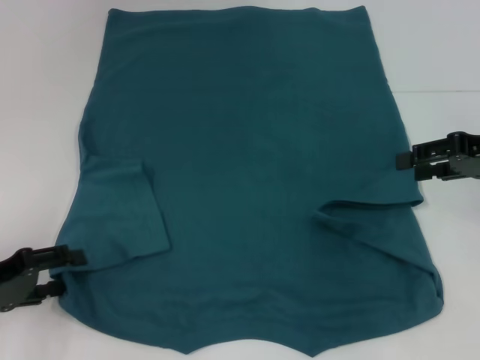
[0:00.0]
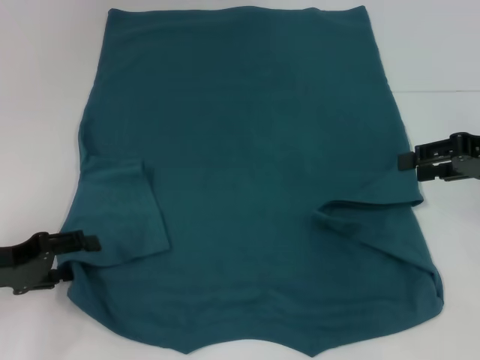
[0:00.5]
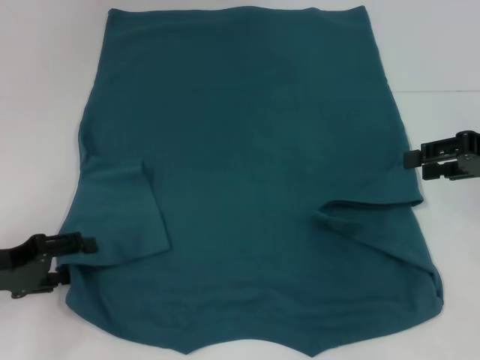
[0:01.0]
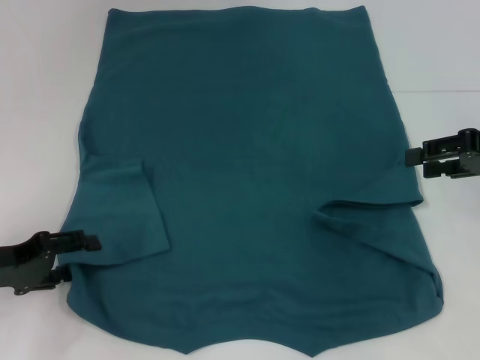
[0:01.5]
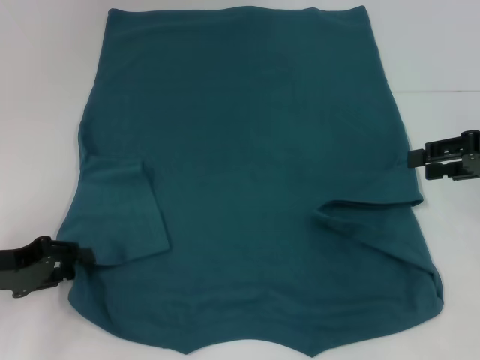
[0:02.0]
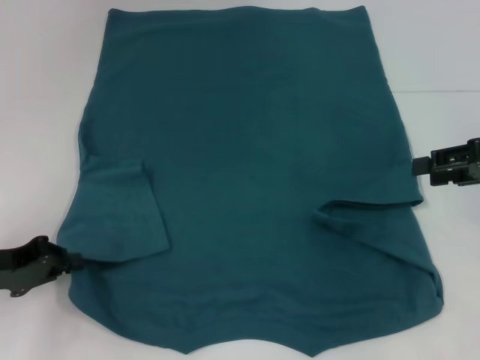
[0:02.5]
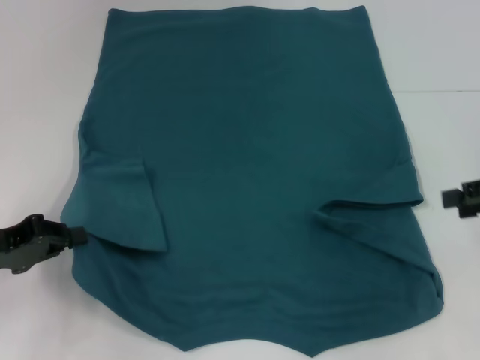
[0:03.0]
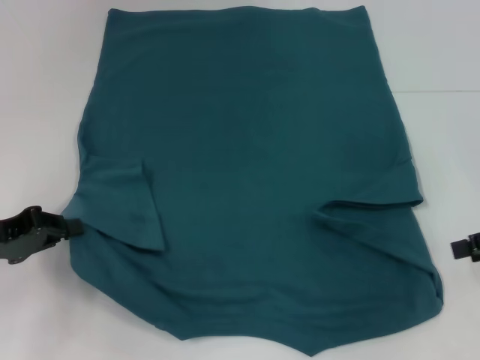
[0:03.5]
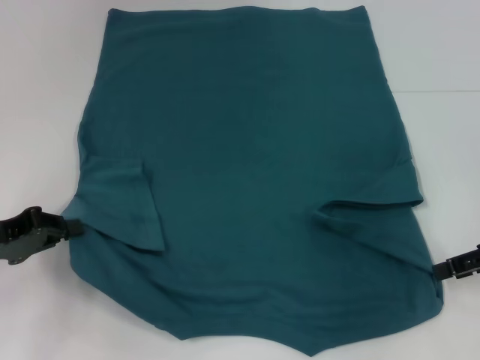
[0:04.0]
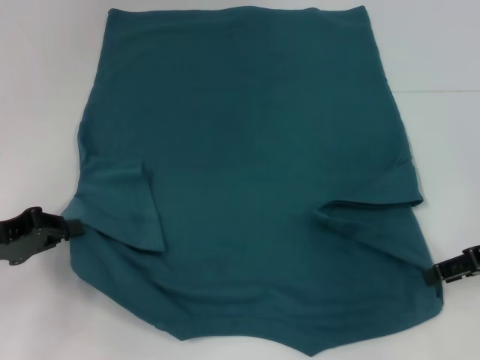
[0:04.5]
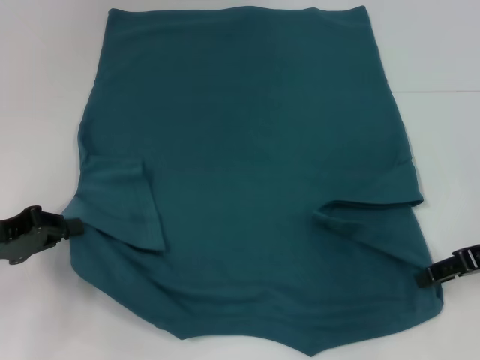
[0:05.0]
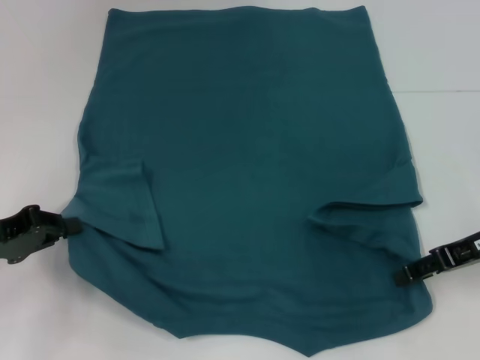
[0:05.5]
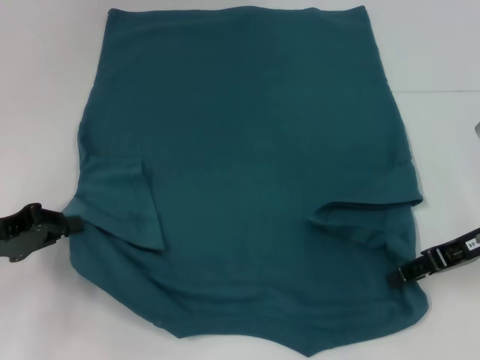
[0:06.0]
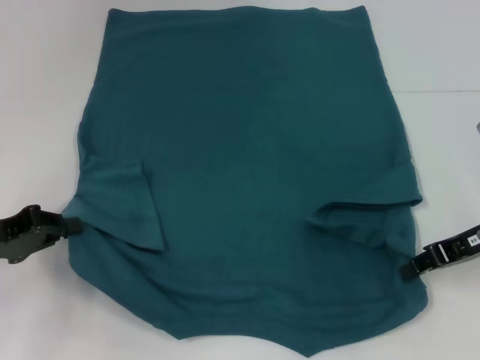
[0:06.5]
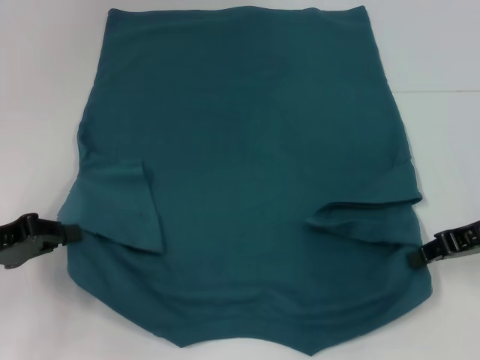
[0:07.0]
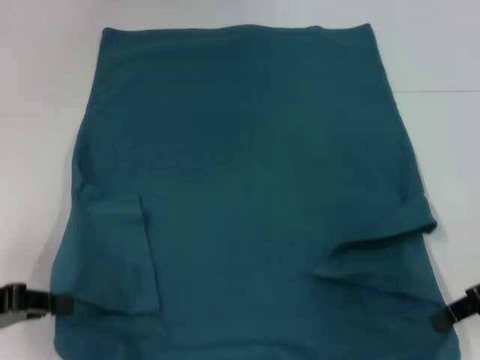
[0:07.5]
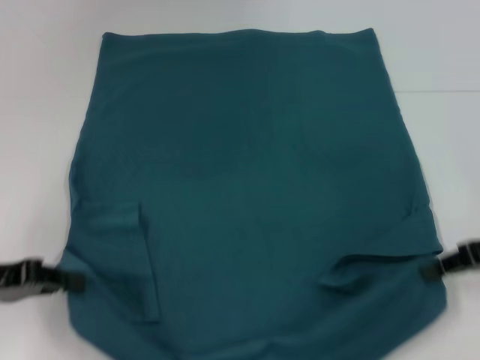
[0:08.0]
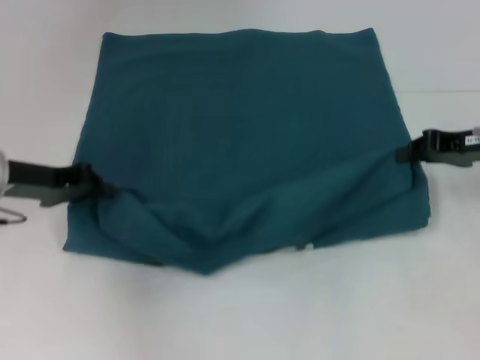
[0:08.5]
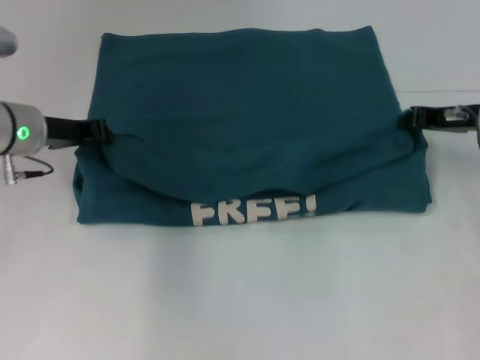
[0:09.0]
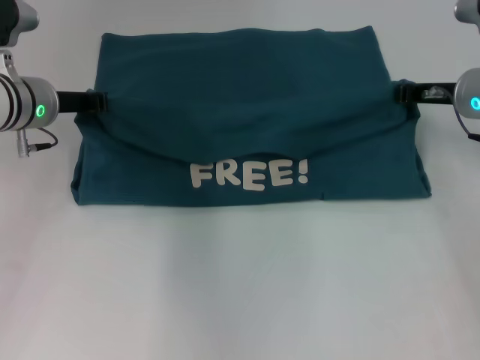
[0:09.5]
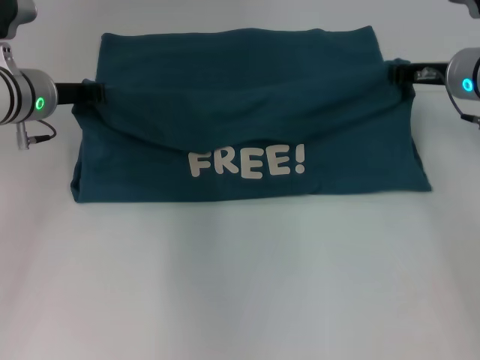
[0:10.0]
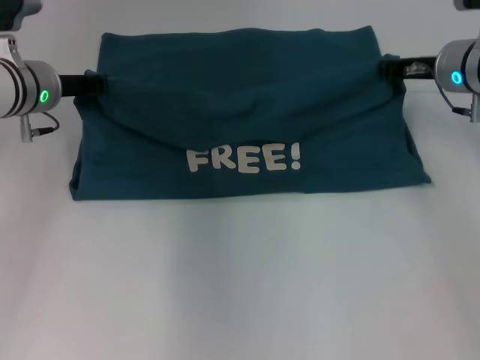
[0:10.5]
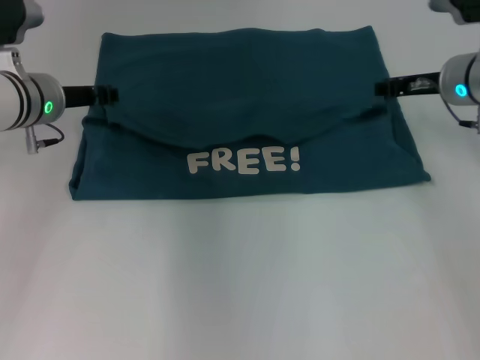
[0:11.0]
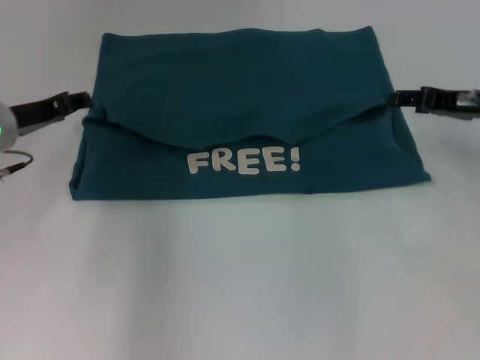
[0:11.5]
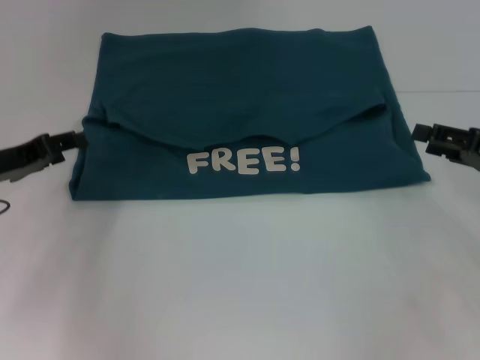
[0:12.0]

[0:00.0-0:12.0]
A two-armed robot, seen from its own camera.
Step, 0.0 to 2.5 s: Grab the bottom left corner with your left hand.
Step, 3.0 to 6.5 s: Grab the bottom right corner with your right hand.
Step, 7.0 to 11.0 s: Fold the clothes to the left.
Step, 7.0 to 11.0 s: Fold the clothes to the right.
0.0 to 2.0 s: The grippers stay close to where they were, moving slightly.
2.0 to 4.0 s: The right gripper changes place by roughly 5 cm. Meanwhile the left gripper closes its fingers.
4.0 to 6.0 s: The right gripper shifts about 5 cm to the left.
6.0 to 8.0 s: The right gripper closes up.
8.0 to 10.0 s: The left gripper travels forward and to the right by roughly 20 cm. The right gripper heads forward and to the left, covering roughly 15 cm.
10.0 to 12.0 s: The left gripper heads backward and to the left, covering approximately 10 cm, and opens up. The right gripper heads backward and to the right, covering roughly 15 cm, and opens up.

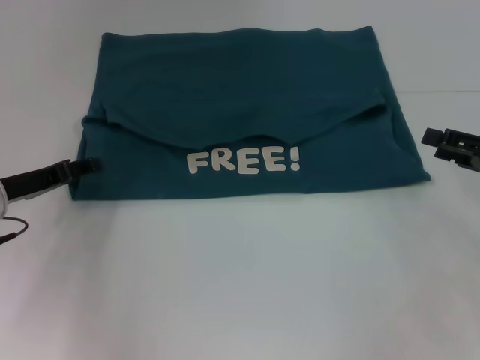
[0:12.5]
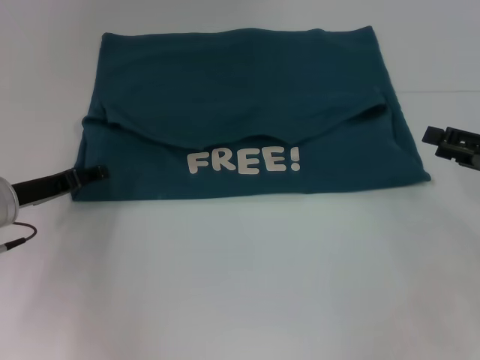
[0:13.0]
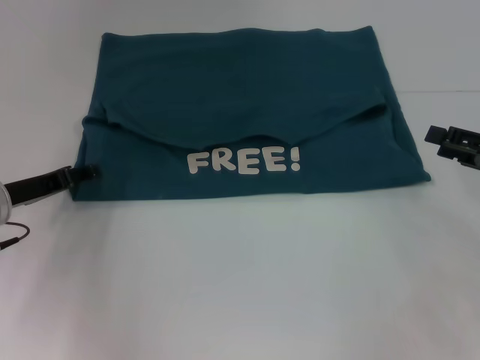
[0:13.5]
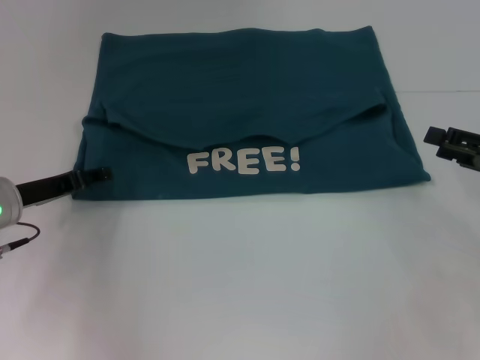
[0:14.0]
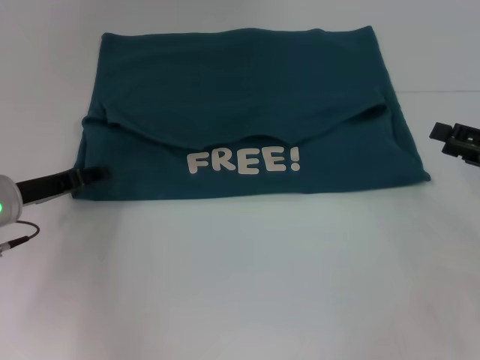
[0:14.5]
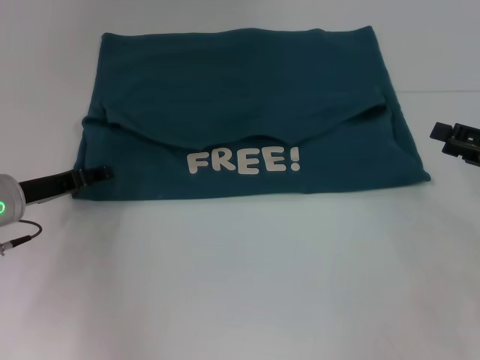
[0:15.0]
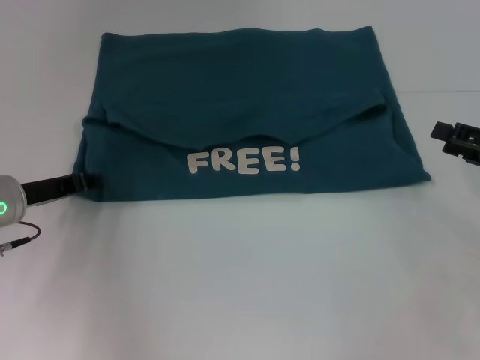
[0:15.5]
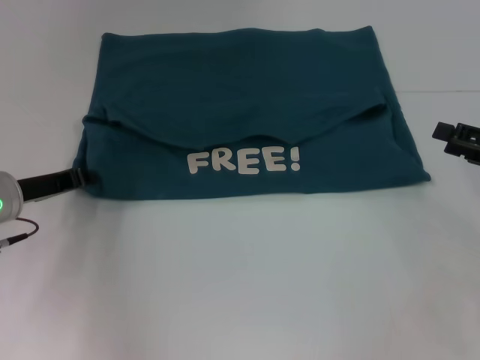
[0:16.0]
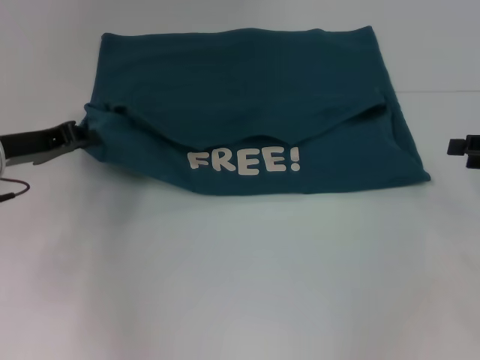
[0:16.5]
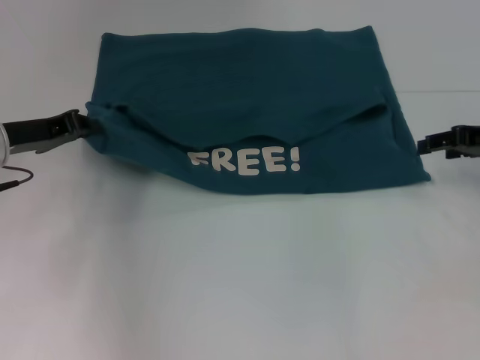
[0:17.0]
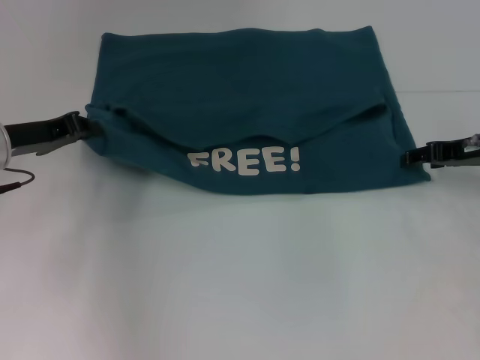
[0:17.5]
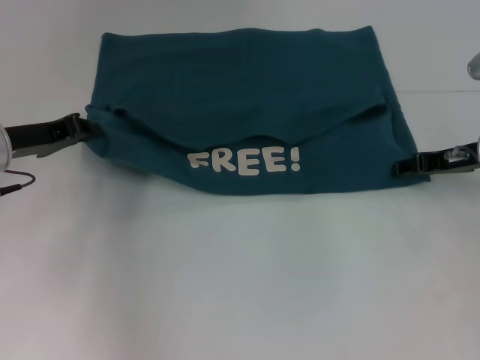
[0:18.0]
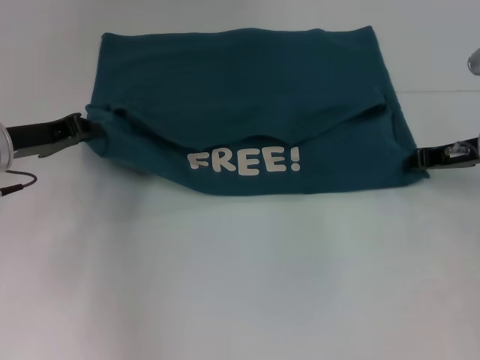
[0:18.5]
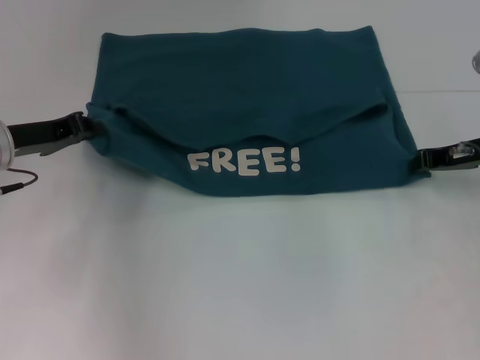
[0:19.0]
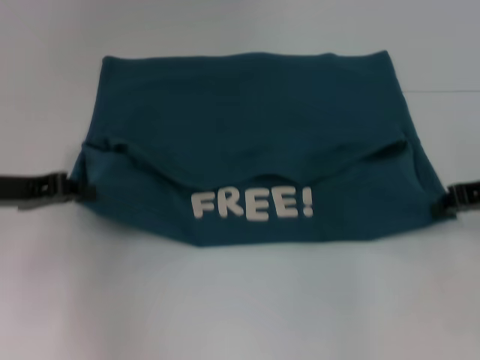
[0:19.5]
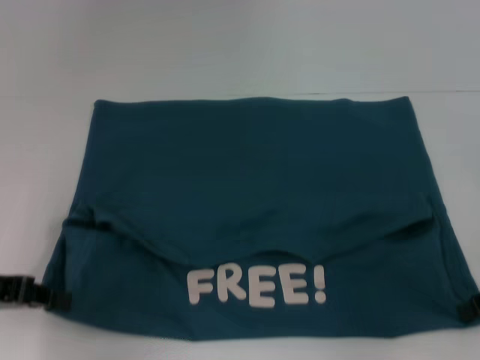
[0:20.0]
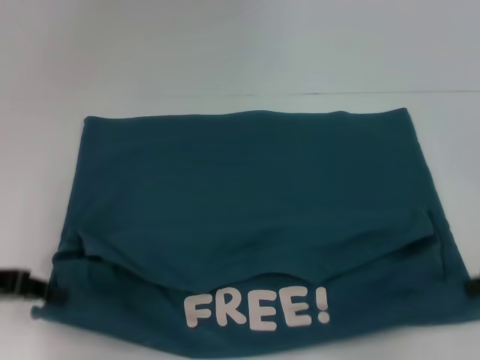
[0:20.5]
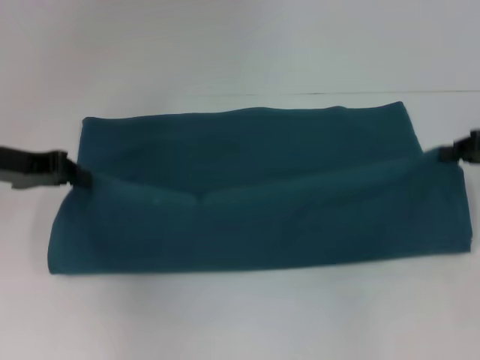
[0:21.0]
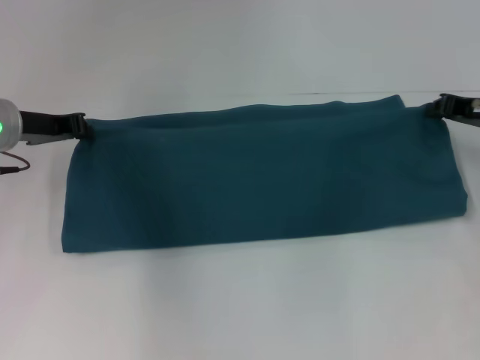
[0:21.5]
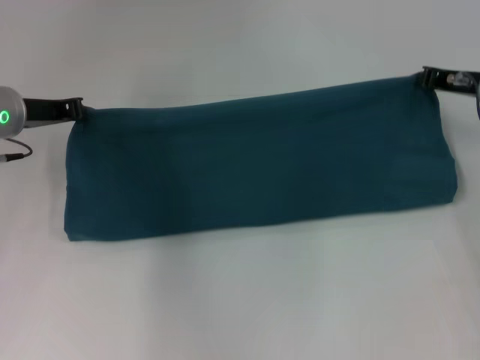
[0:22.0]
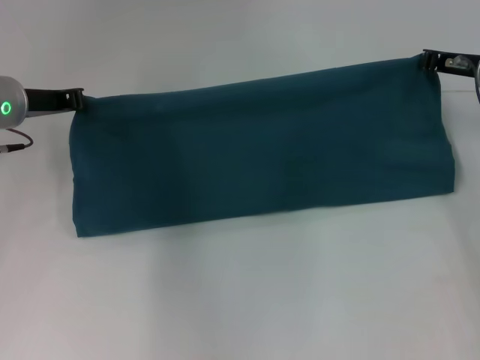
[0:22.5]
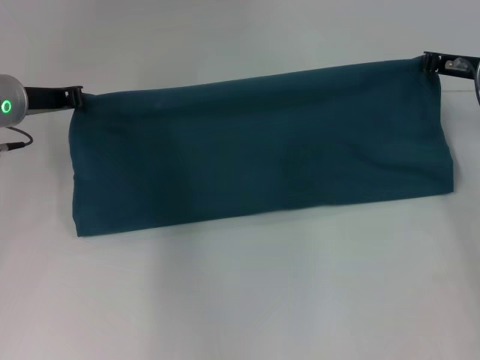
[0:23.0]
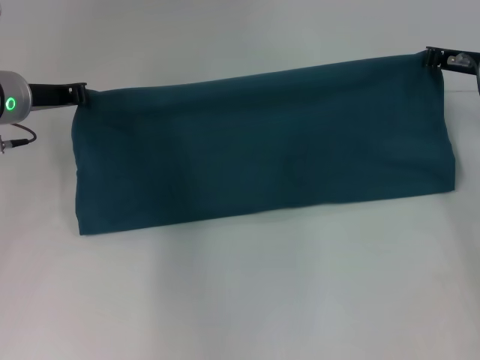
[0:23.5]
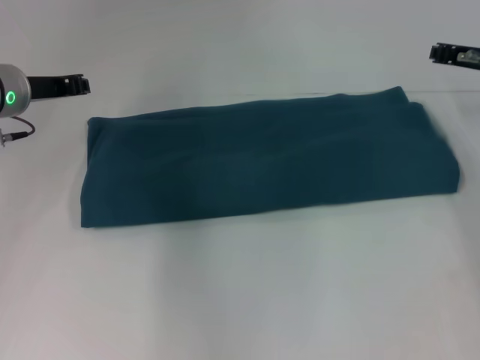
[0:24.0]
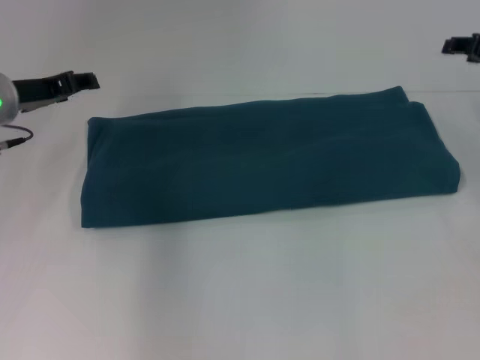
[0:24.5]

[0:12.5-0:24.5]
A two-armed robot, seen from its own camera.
Step, 12.5 to 19.5 s: Pull the clothes with your left hand.
Step, 12.5 to 19.5 s: Pull the clothes with your right hand.
Step, 20.0 to 24.0 s: Fold the clothes to the right.
12.5 to 14.5 s: There are only small adjustments of the grippers.
14.5 to 16.5 s: The left gripper ends up about 5 cm from where it was, and closes up.
16.5 to 18.5 s: The right gripper shifts approximately 10 cm to the left and forward, and closes its fingers.
18.5 to 20.5 s: The right gripper heads backward and to the right, covering approximately 15 cm. The left gripper is displaced backward by roughly 10 cm.
20.5 to 22.5 s: The right gripper shifts approximately 15 cm forward and to the left. The left gripper moves forward and to the right, roughly 15 cm.
22.5 to 24.5 s: The right gripper moves to the right, approximately 5 cm, and opens its fingers. Meanwhile the left gripper opens up.

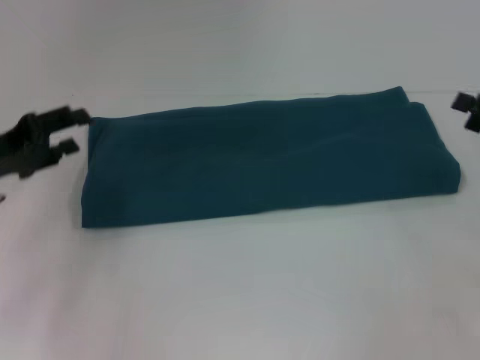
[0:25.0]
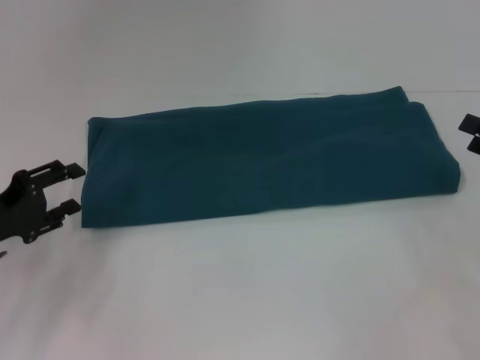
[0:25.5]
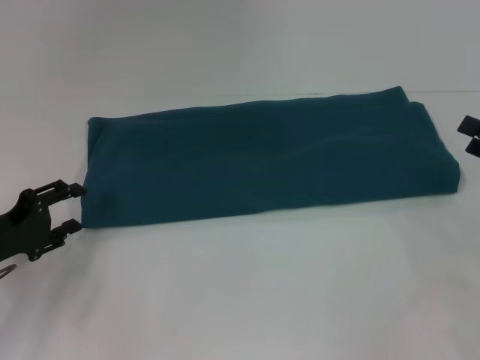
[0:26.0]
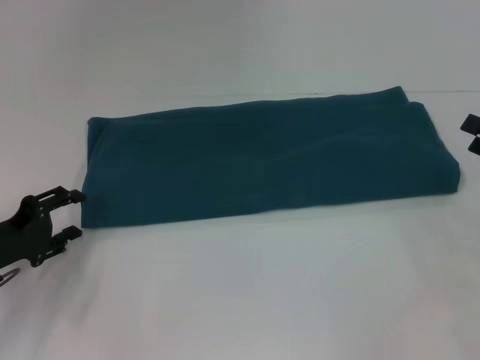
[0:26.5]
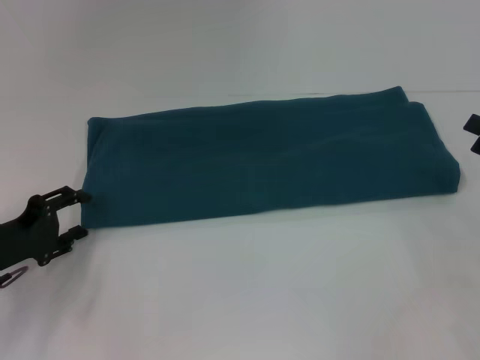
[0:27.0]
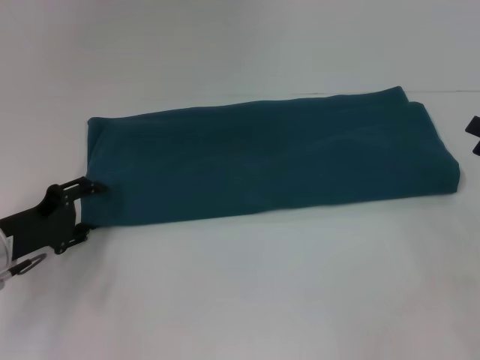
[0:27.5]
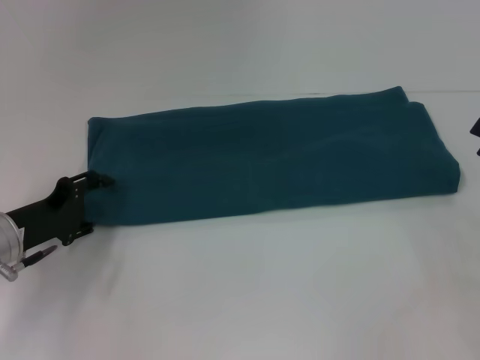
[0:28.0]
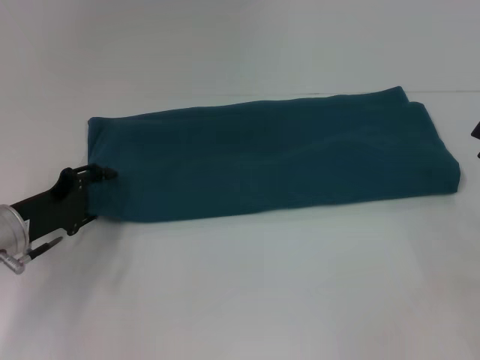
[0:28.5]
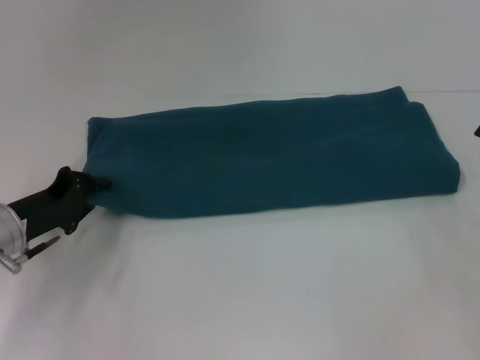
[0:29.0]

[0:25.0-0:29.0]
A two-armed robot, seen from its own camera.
25.0 to 27.0 s: The left gripper goes some 10 cm downward.
27.0 to 29.0 s: The left gripper closes.
